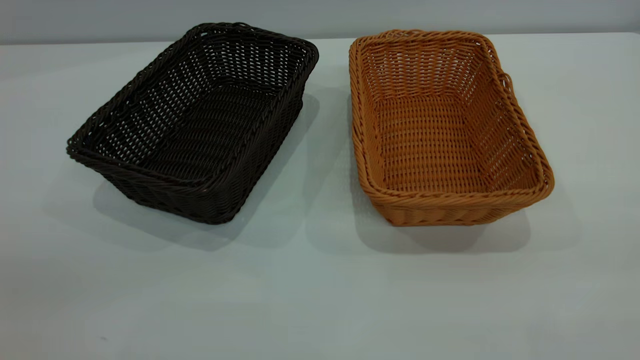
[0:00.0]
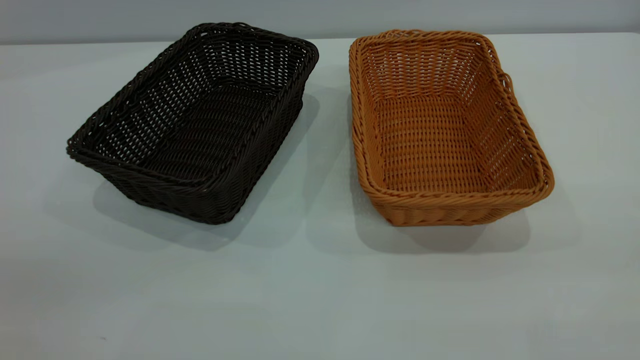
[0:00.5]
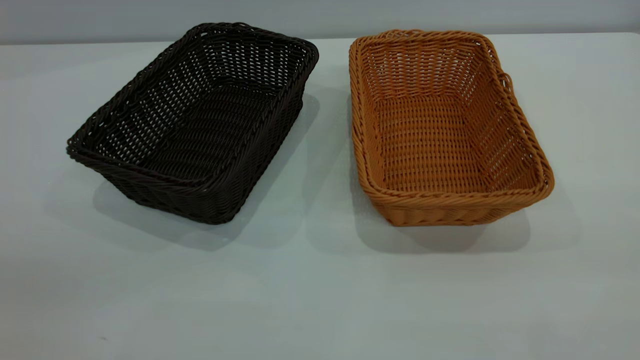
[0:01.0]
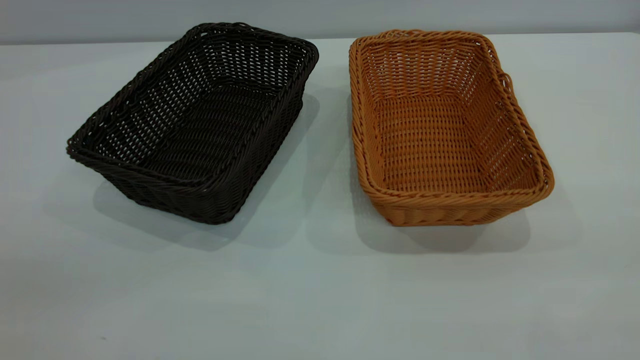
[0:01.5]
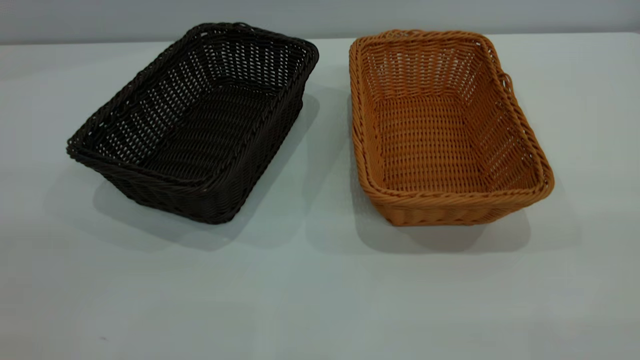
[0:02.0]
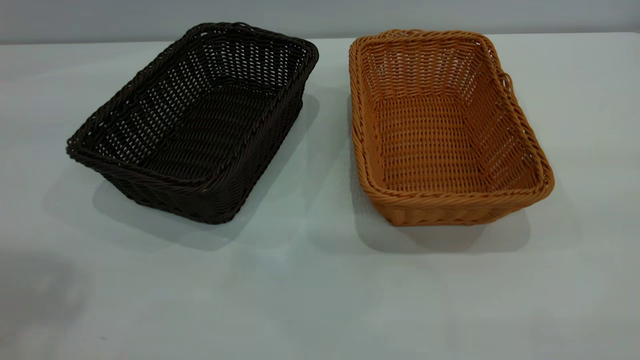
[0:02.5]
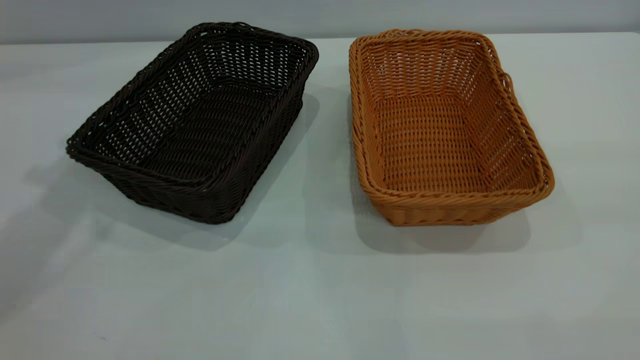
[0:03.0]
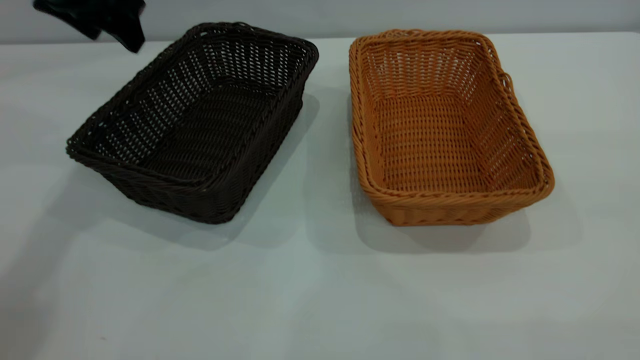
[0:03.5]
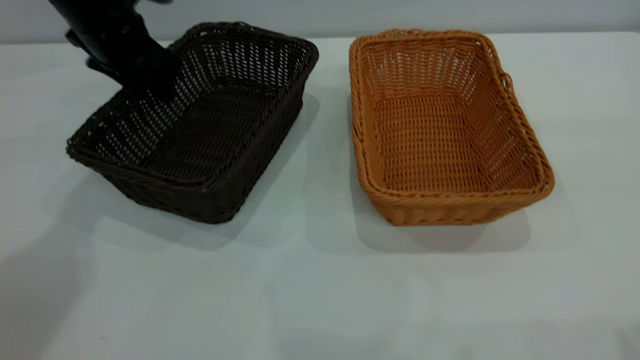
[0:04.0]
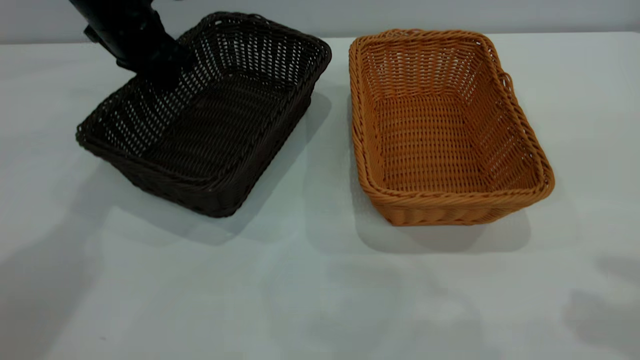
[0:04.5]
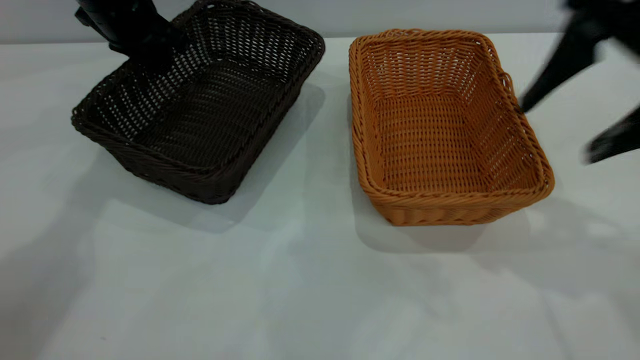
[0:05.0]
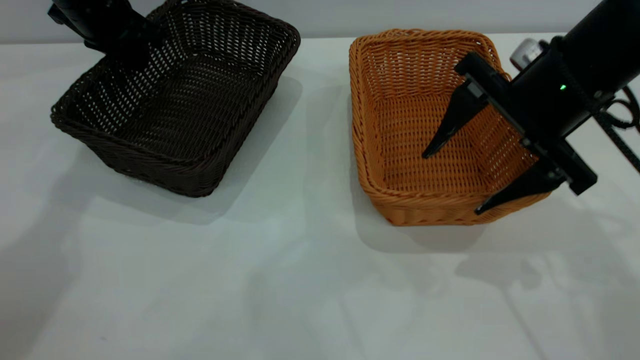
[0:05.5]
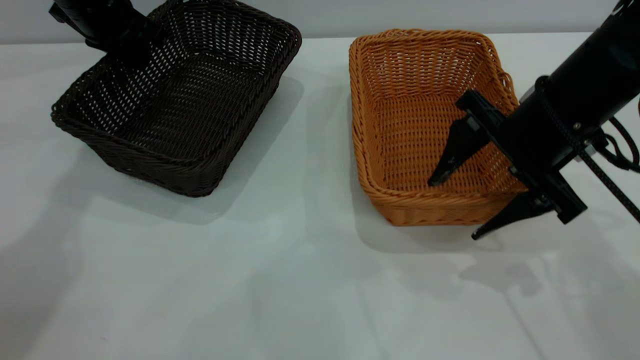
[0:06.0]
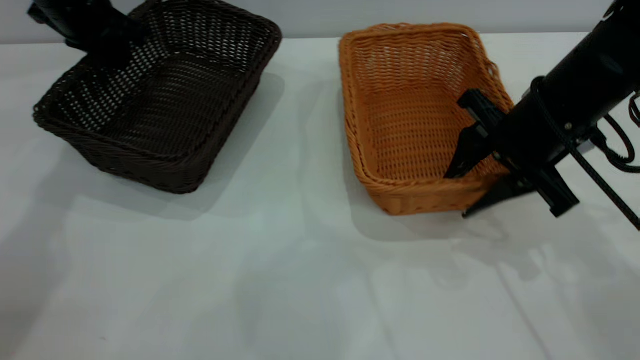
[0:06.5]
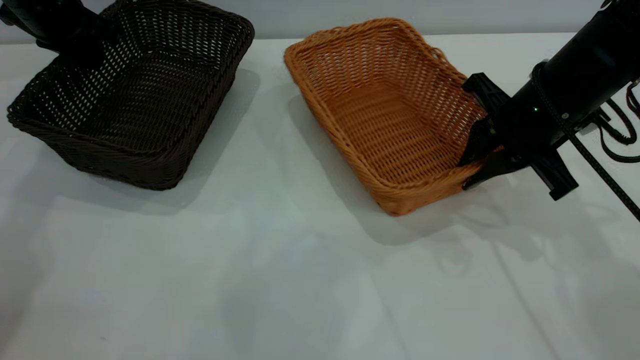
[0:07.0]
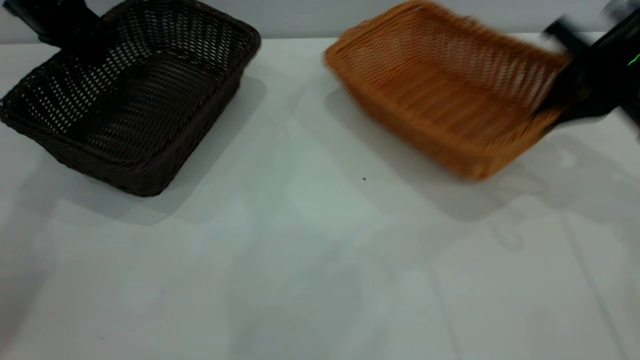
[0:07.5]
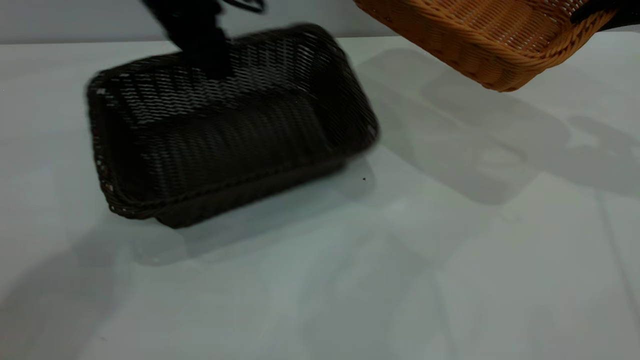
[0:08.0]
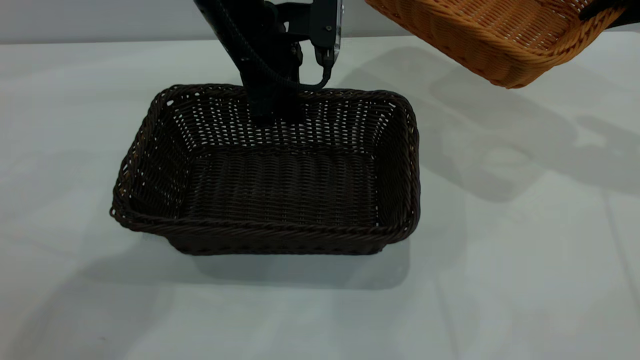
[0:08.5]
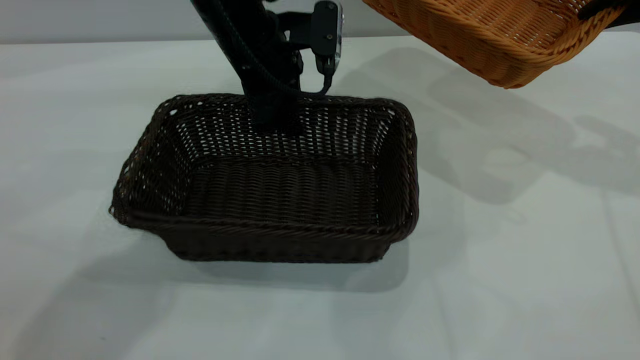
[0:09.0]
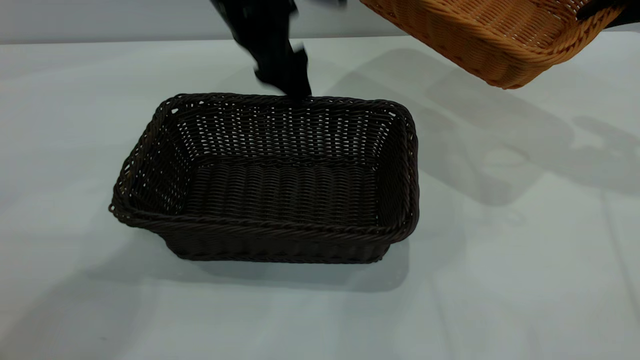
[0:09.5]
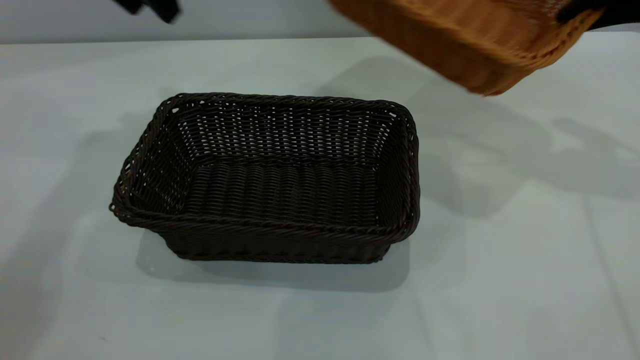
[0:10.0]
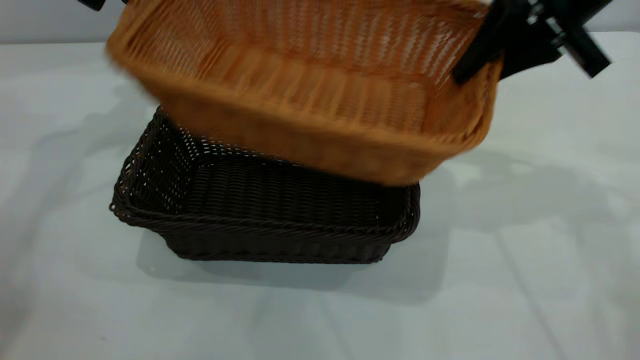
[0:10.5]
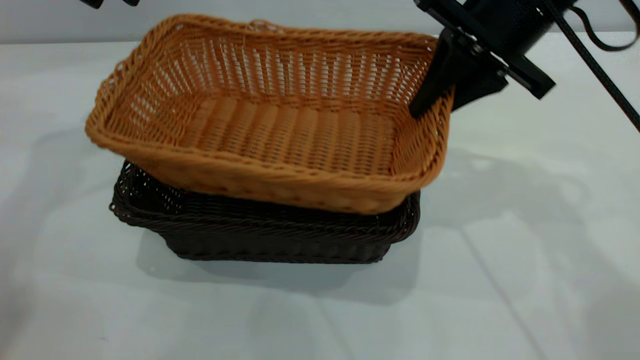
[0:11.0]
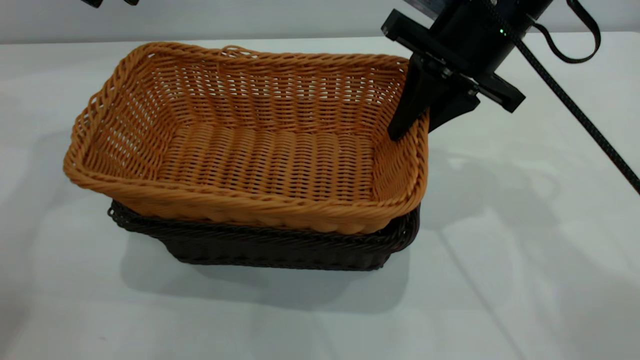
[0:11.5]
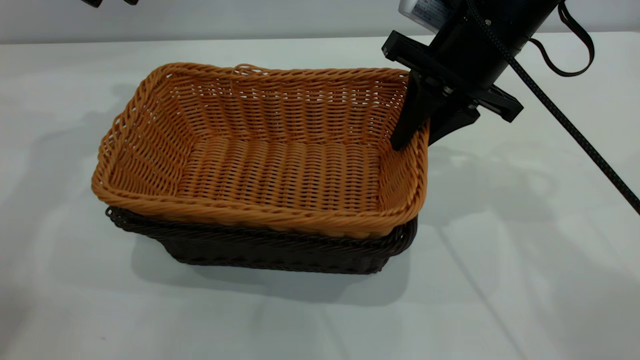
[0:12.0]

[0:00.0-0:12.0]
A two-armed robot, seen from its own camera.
Task of the whole recording: the left gripper grasp the black basket and place it in the center of the table, the right gripper grasp the brown basket and place it inside the black one.
Step, 0:00.0 to 0:07.5: Pick up the light basket with the right gripper.
Step, 0:08.0 to 0:09.5: Move the dark basket to the center of view.
0:02.0 to 0:04.0: The left gripper heads forward and downward, covering approximately 50 cm.
0:04.0 to 0:06.0: The right gripper is displaced downward, forward and to the left by about 30 cm. The left gripper closes its fingers.
0:06.0 to 0:08.0: The right gripper travels to the right, upward and forward by about 20 cm, and closes its fingers. The left gripper travels to the right by about 10 cm.
0:08.0 to 0:10.0: The left gripper shifts about 15 cm to the left and upward, and opens up.
0:10.0 to 0:12.0: The right gripper shifts approximately 15 cm to the left.

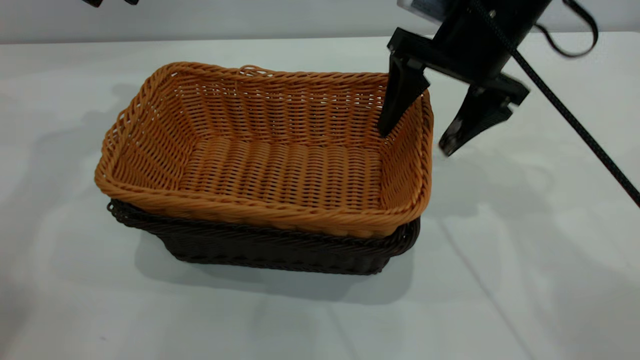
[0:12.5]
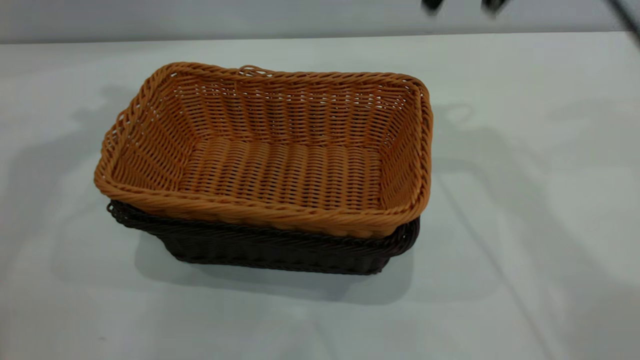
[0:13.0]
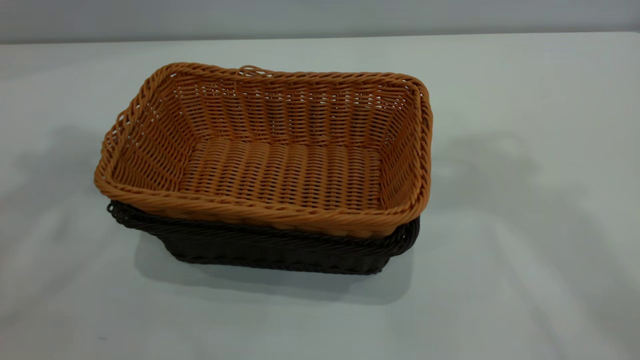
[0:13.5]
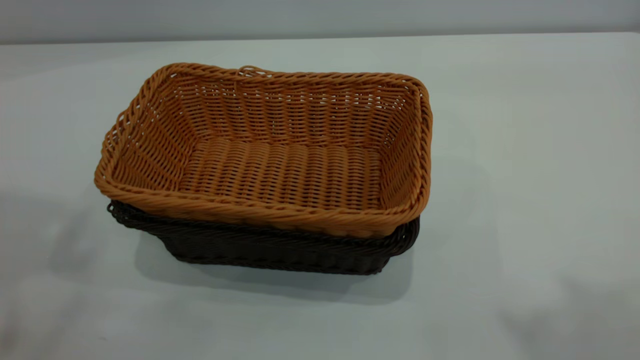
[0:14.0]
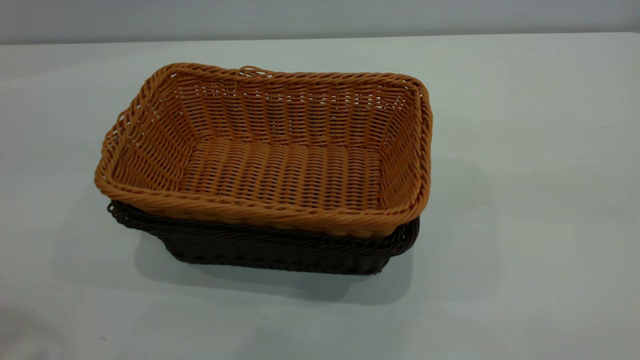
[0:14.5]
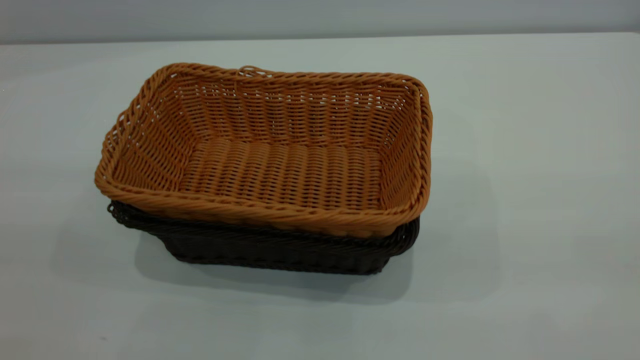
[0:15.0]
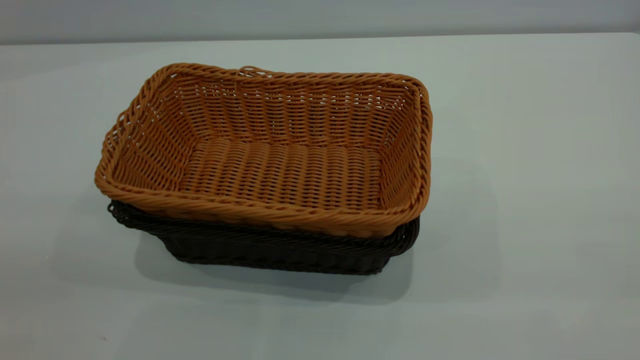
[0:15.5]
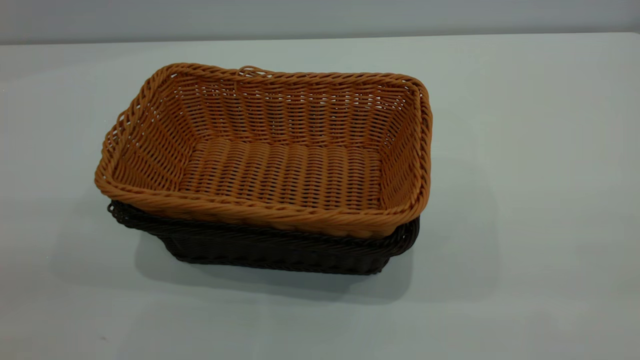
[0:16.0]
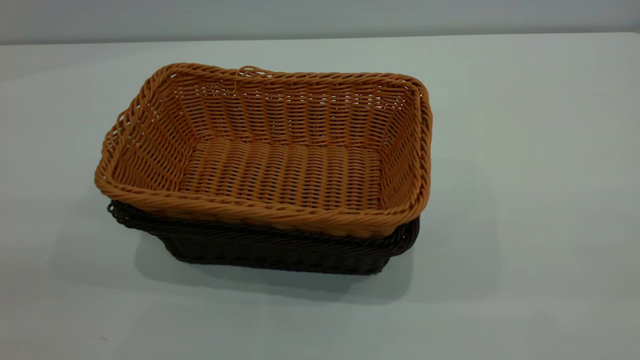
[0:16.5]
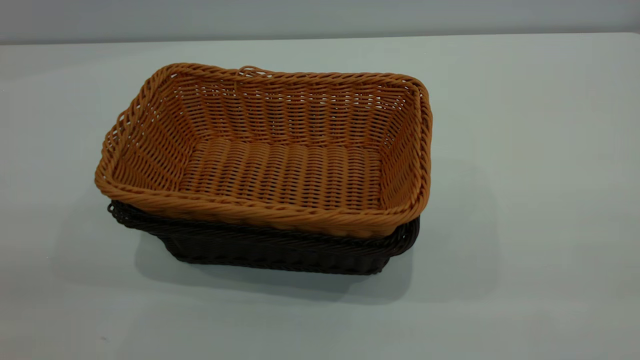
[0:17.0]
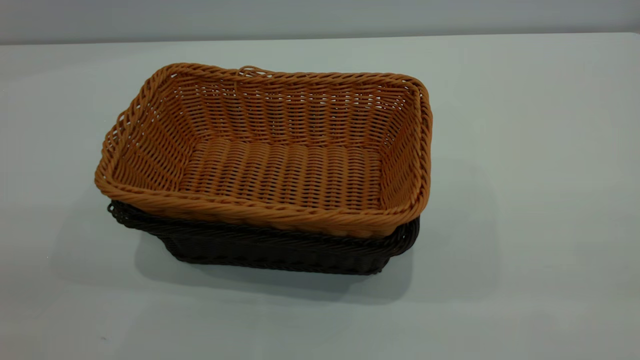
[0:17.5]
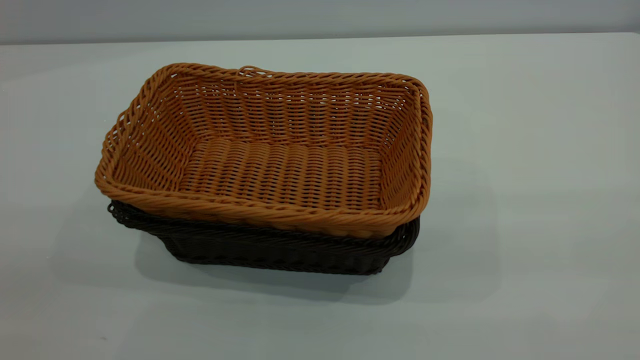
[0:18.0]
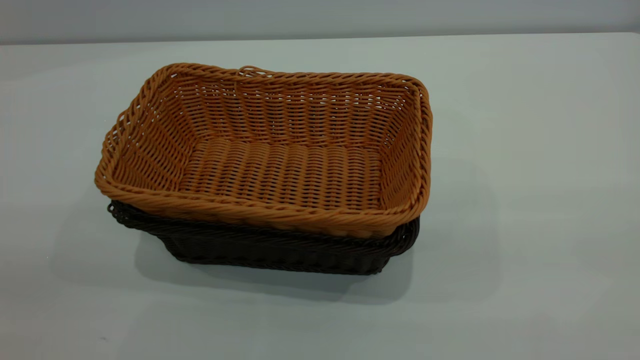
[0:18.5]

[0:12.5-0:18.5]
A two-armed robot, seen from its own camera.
Task of the whole recording: the left gripper grasp the black basket and place it in the center of the table, the right gripper grasp the brown basket and place it inside the black one.
0:12.5 to 0:14.5: Both grippers travel together backward and upward, approximately 40 cm.
